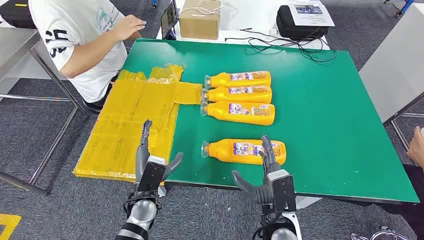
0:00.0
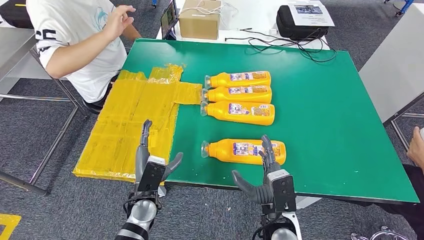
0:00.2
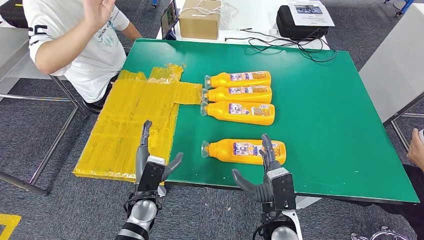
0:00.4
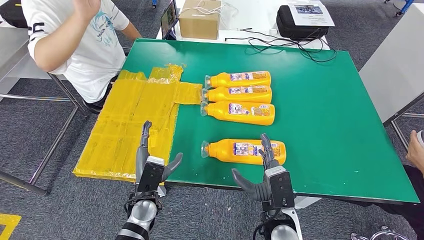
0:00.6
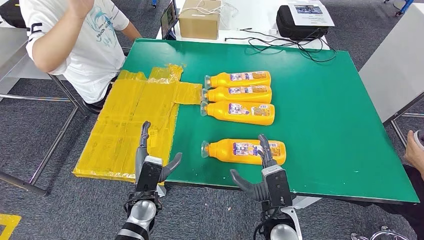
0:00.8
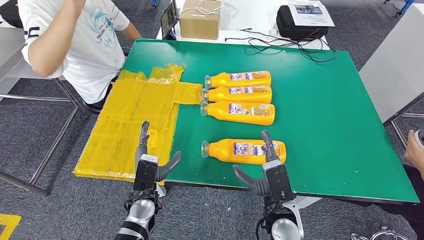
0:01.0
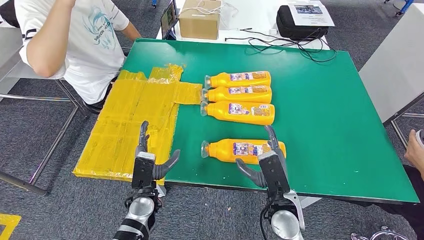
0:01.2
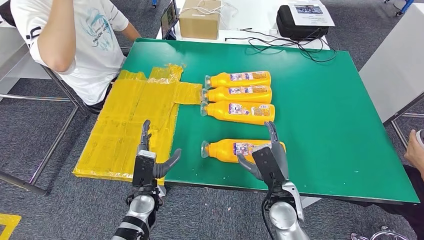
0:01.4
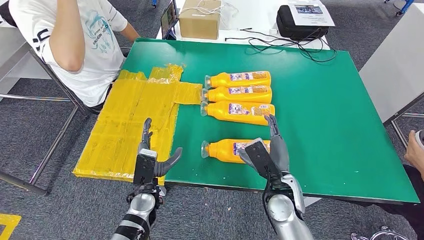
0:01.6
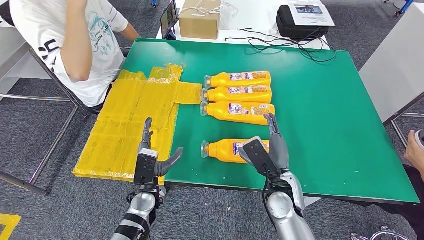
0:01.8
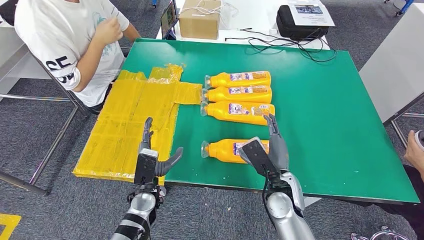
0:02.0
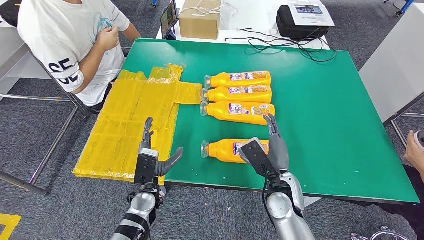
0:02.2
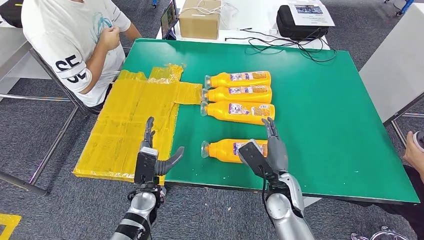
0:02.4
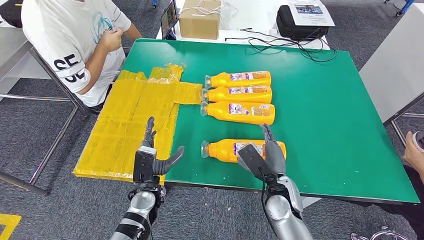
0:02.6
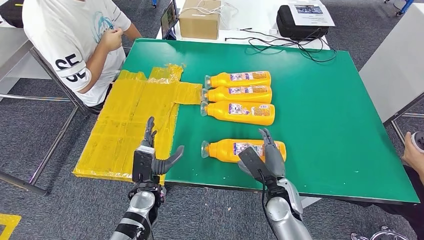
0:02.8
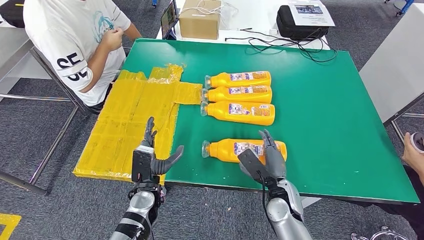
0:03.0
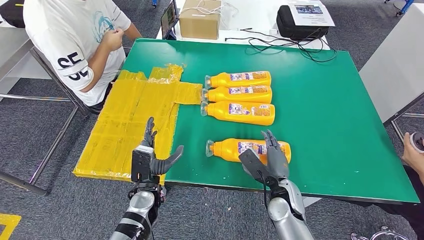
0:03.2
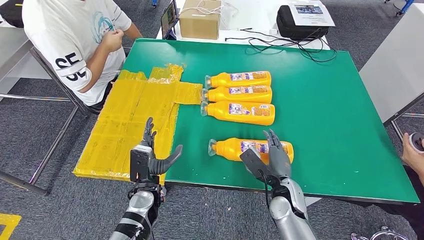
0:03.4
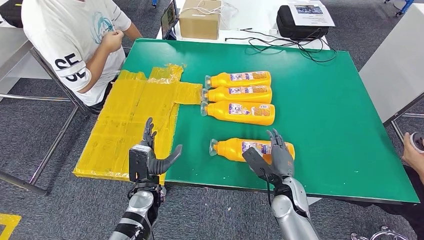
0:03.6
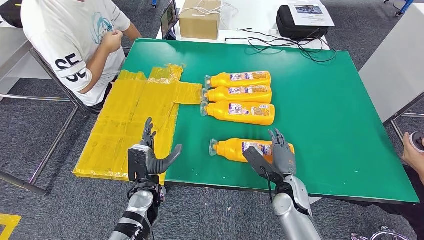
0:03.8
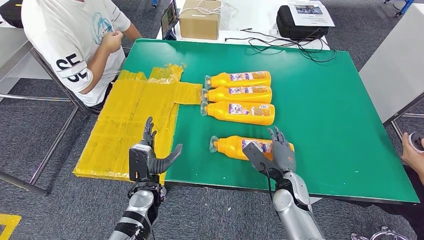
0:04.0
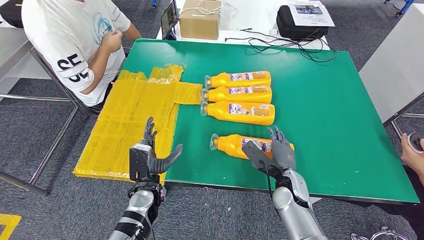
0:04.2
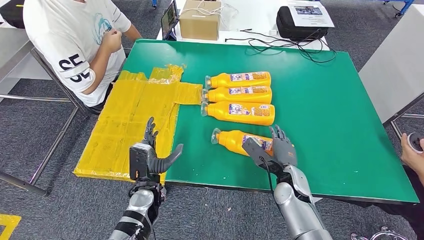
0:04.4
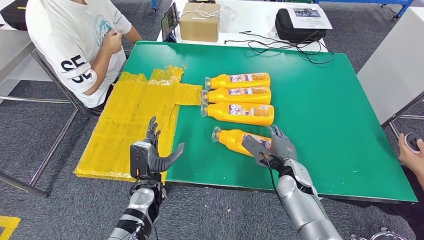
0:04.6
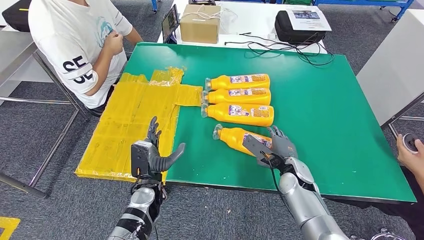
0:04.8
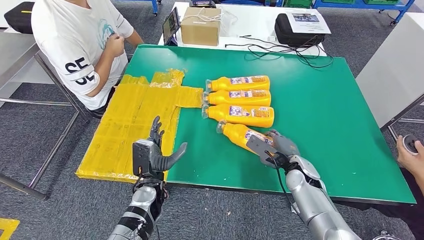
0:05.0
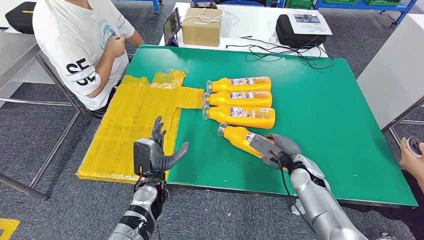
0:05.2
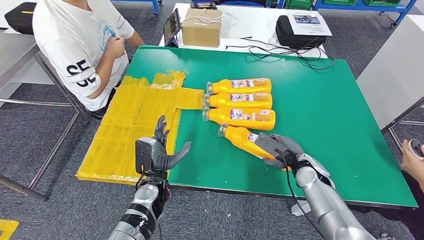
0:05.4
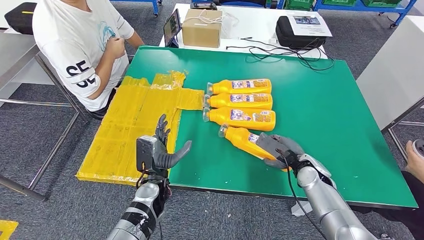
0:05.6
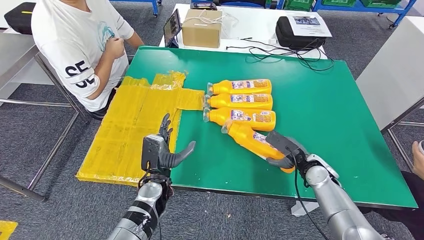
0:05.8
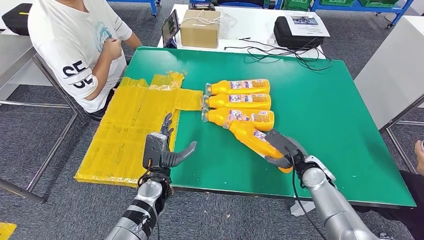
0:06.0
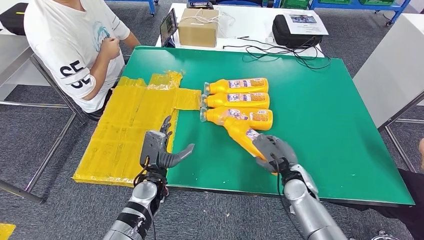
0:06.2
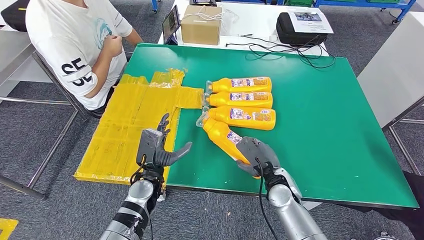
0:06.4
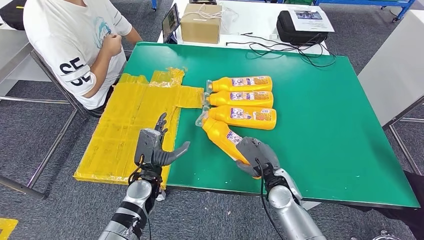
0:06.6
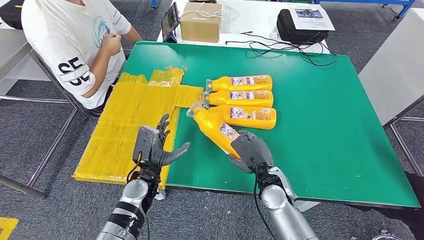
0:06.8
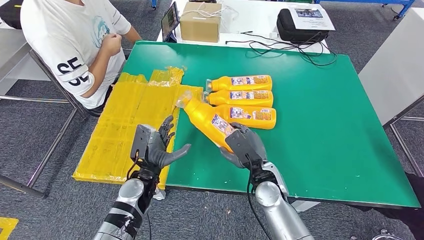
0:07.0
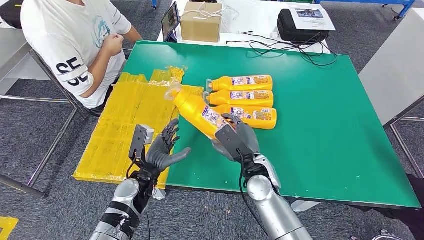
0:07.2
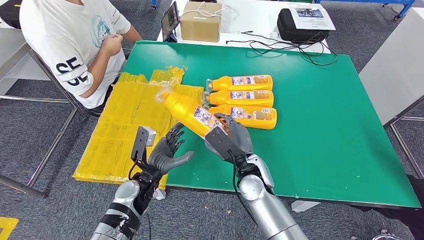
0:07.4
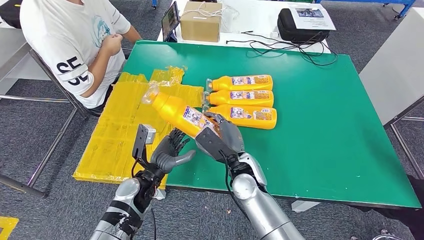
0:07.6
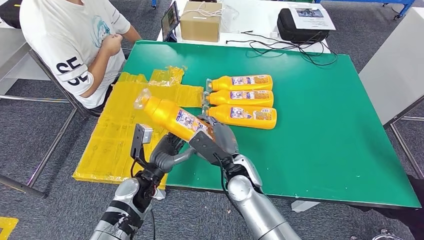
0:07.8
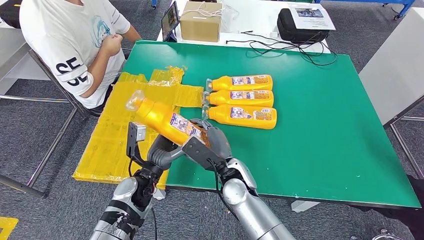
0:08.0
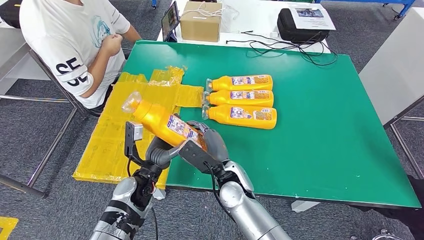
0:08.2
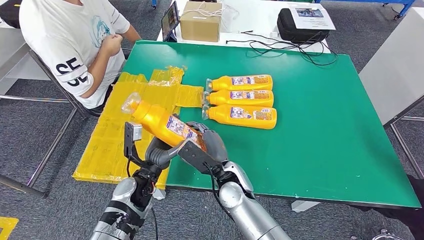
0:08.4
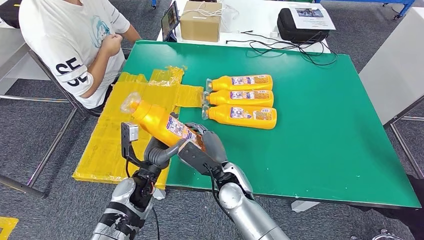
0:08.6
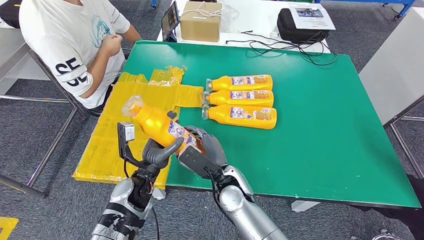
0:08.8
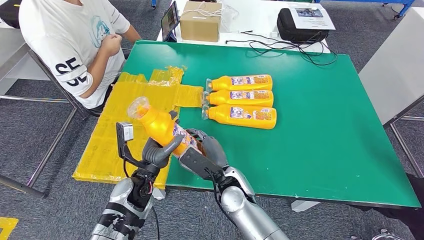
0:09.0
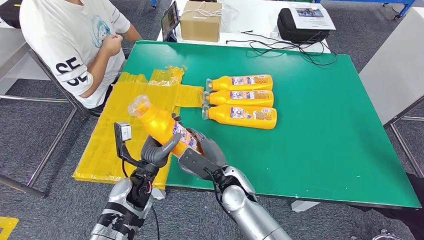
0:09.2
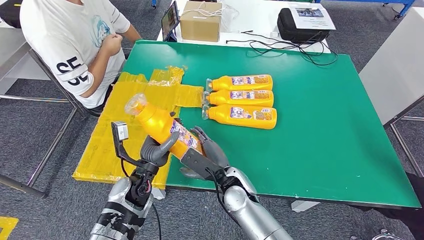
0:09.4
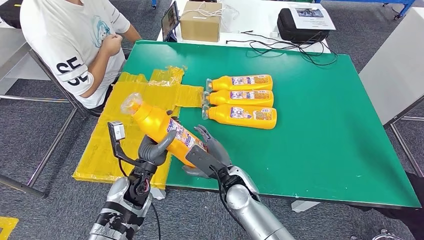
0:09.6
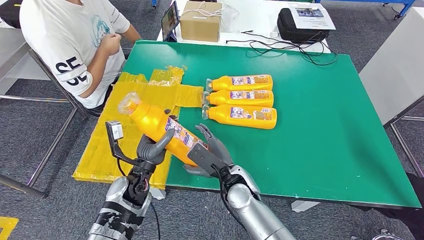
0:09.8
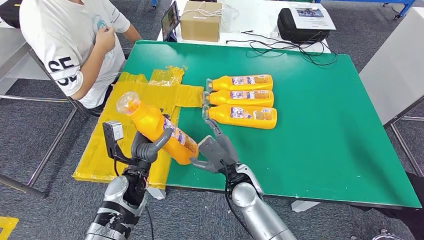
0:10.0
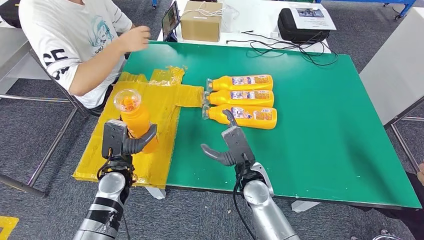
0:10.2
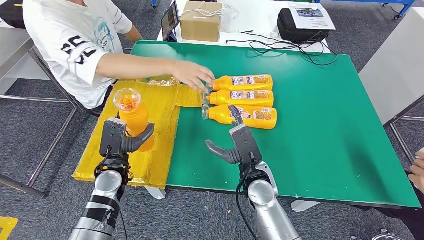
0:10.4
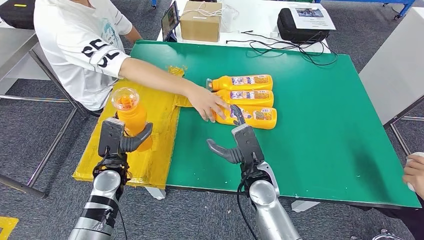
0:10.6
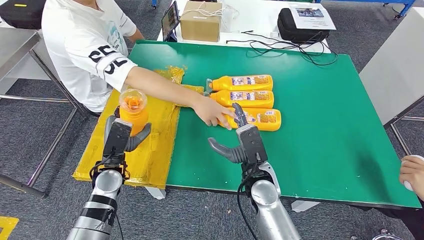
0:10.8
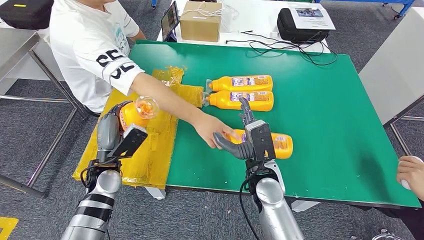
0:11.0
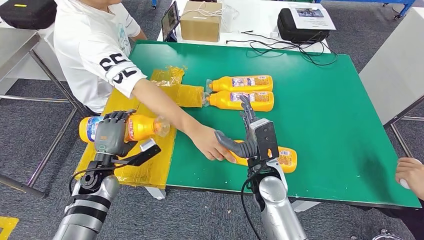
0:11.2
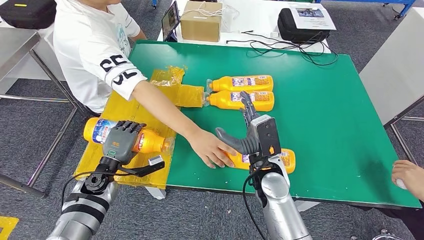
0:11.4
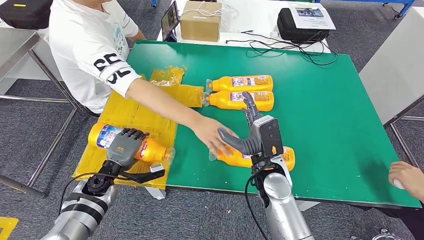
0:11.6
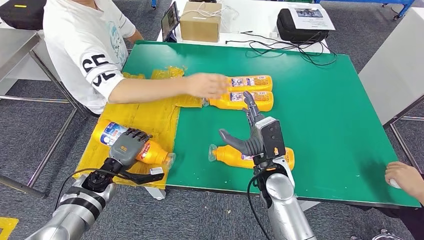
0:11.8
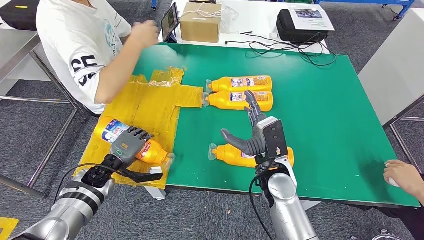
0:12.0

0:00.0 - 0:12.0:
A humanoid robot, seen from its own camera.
Step, 0:00.0 - 0:07.0: Take the fast-moving consumer goods bottle from the table.
0:01.6 - 0:03.0: The hands stay close to where they were, moving slightly.
0:03.0 - 0:04.4: The right hand shifts by approximately 5 cm.
0:07.6 - 0:09.0: The right hand moves approximately 5 cm.

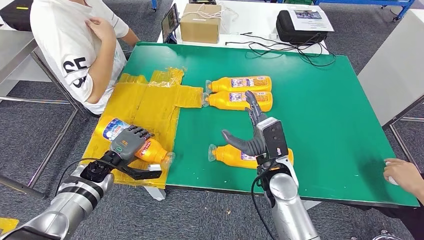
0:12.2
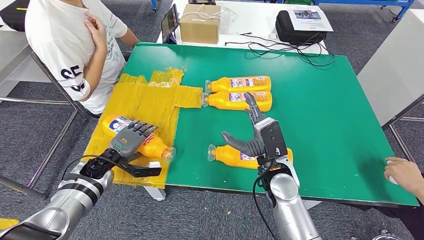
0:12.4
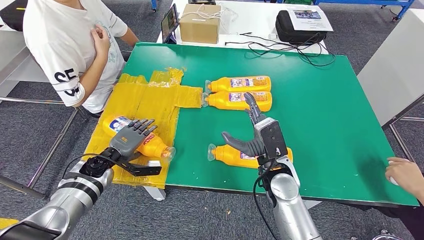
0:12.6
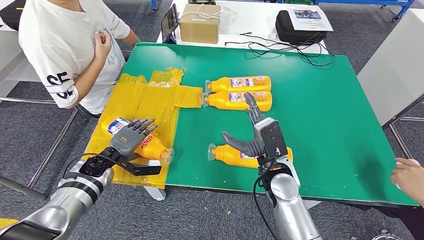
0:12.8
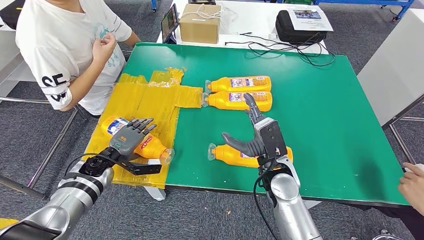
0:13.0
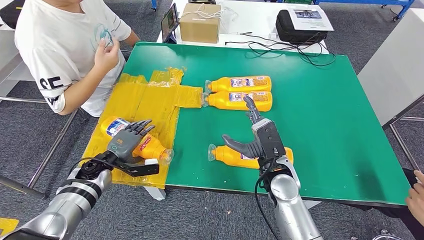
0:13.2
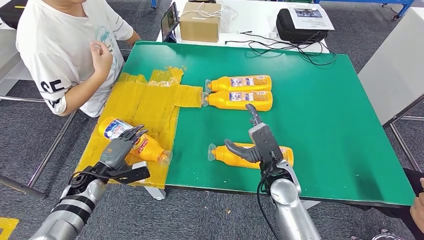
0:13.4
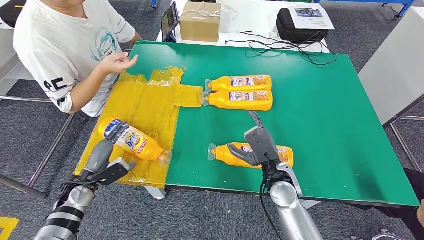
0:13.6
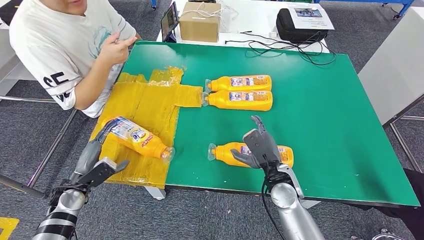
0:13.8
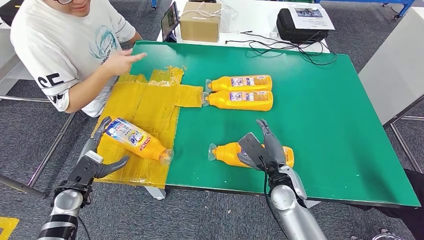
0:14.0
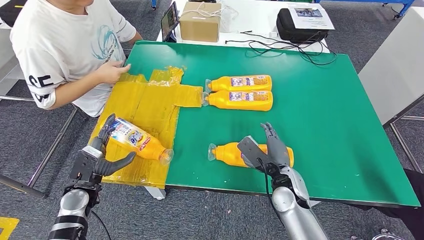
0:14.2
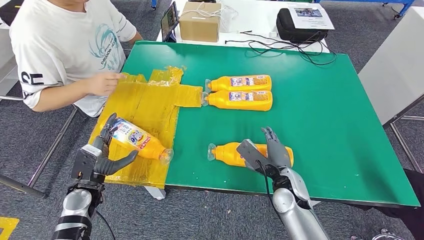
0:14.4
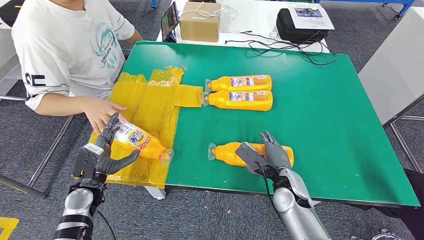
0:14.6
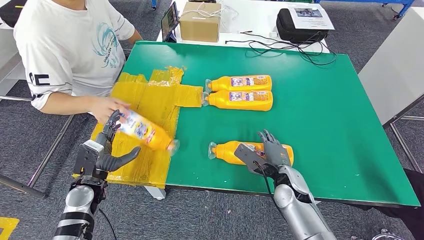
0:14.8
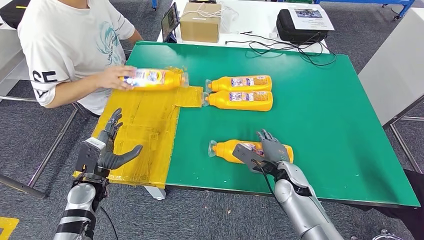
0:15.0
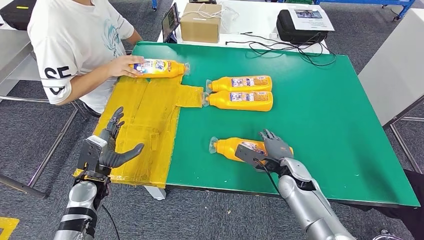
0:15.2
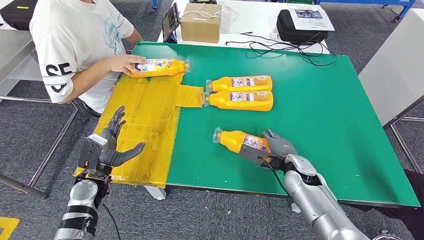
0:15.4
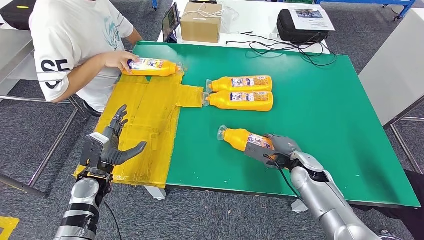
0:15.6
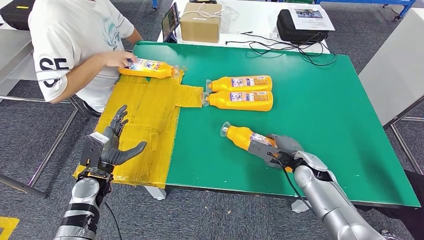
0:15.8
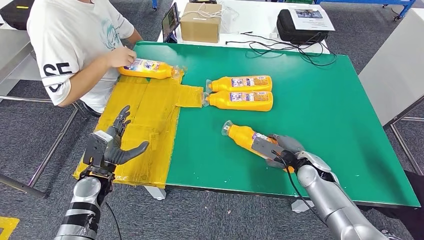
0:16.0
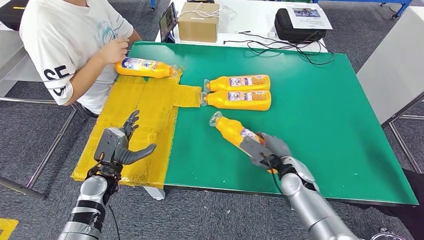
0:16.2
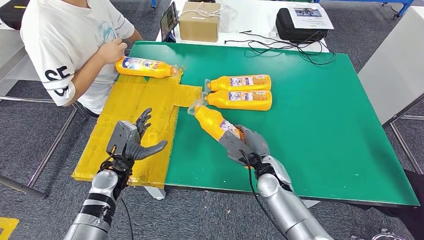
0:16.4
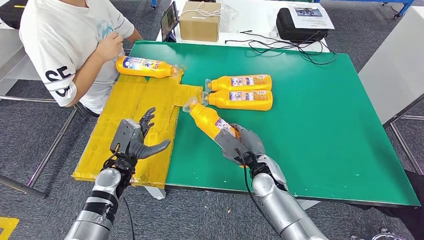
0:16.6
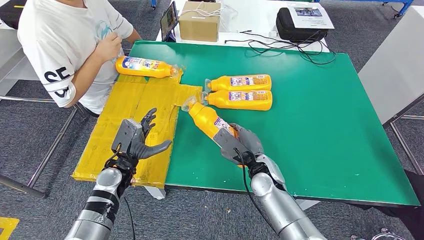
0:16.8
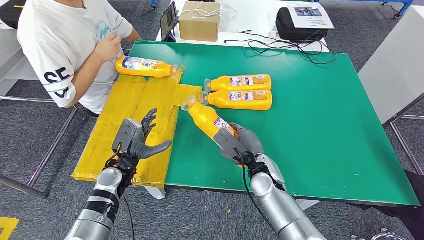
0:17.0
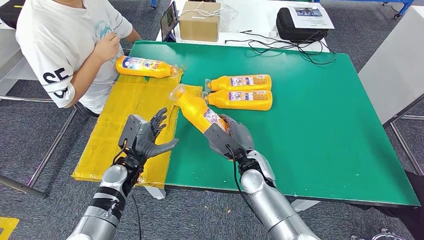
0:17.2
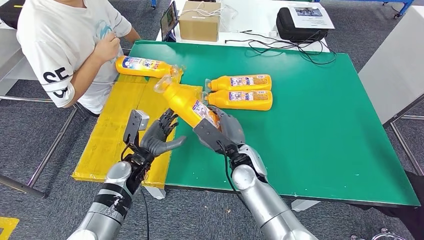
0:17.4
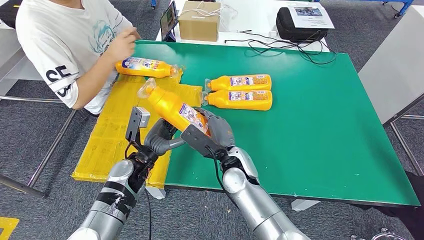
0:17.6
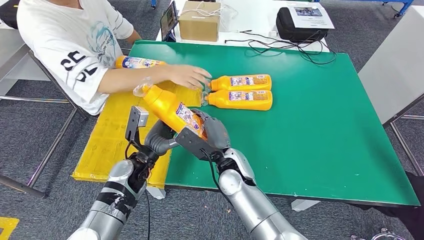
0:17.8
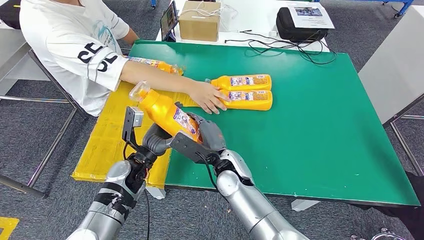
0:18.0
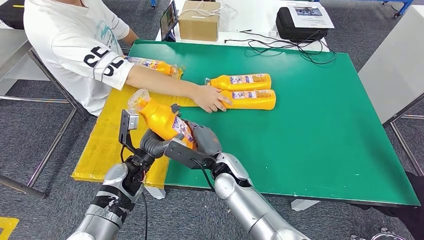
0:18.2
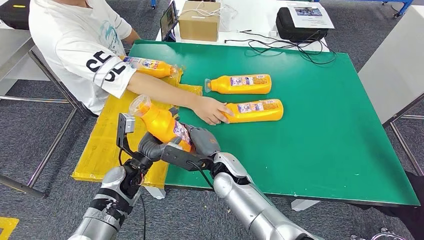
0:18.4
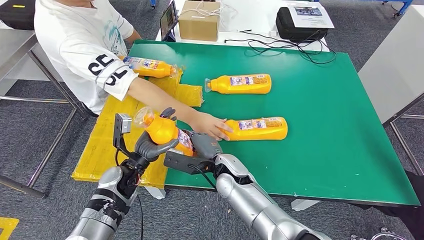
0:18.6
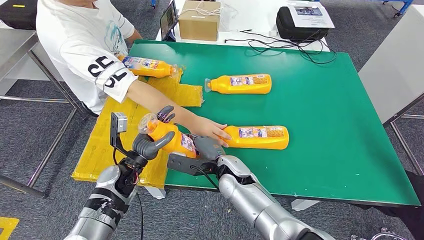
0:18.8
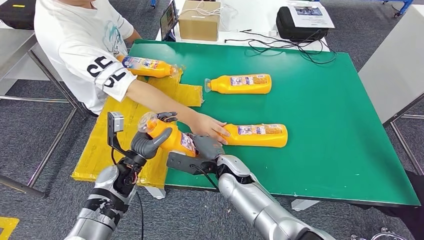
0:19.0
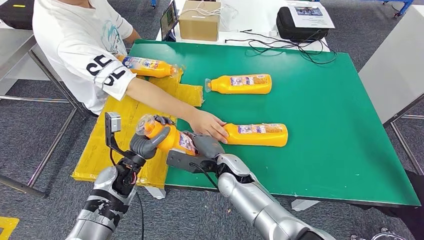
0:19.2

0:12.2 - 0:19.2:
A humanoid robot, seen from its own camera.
Step, 0:13.6 - 0:17.0: Pick up the fast-moving consumer goods bottle from the table.
0:13.6 - 0:15.0: The left hand heads to the right, covering approximately 5 cm. The right hand moves about 5 cm.
